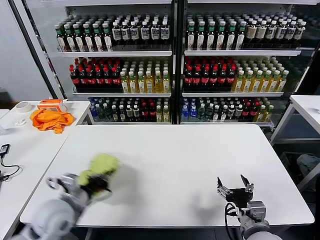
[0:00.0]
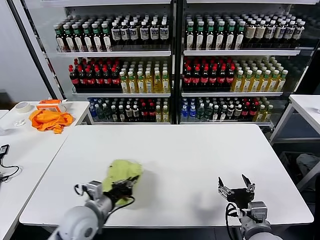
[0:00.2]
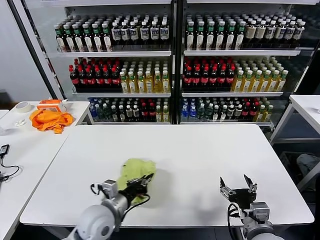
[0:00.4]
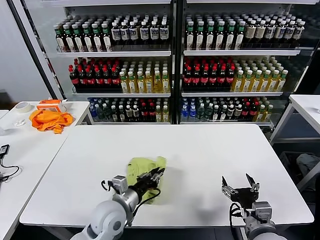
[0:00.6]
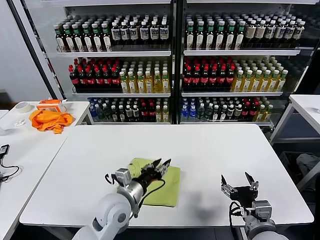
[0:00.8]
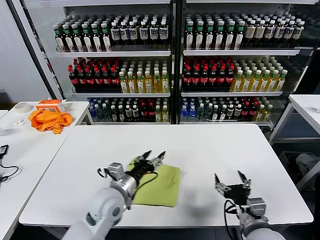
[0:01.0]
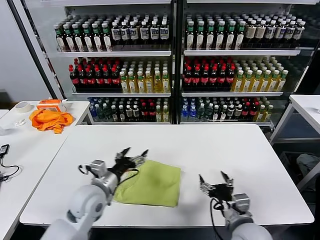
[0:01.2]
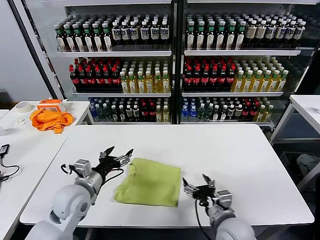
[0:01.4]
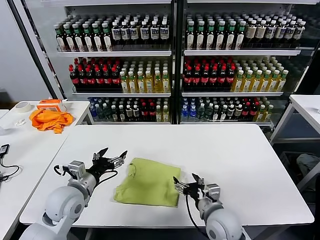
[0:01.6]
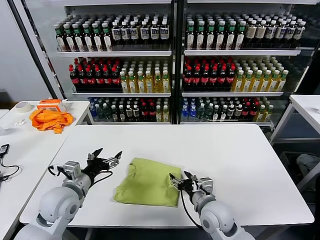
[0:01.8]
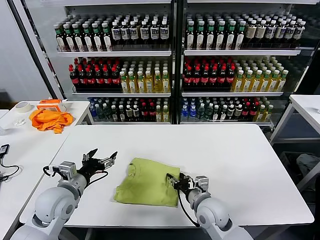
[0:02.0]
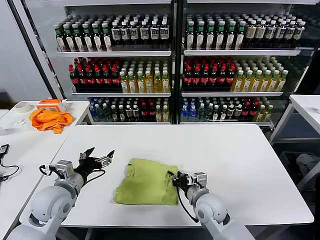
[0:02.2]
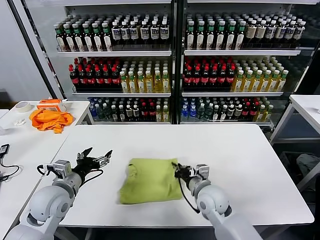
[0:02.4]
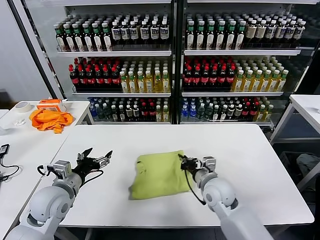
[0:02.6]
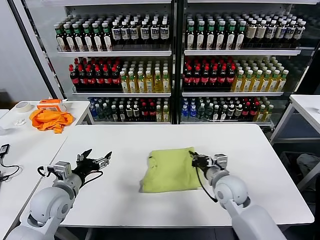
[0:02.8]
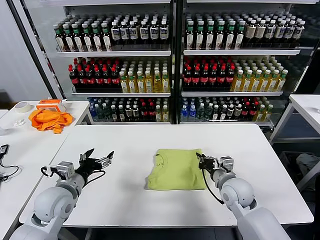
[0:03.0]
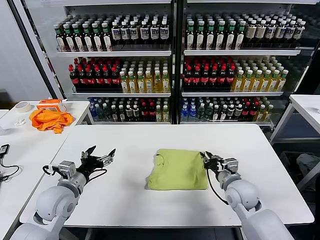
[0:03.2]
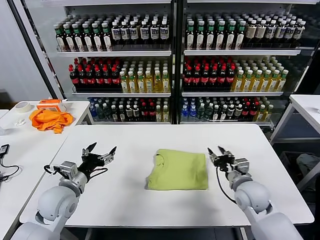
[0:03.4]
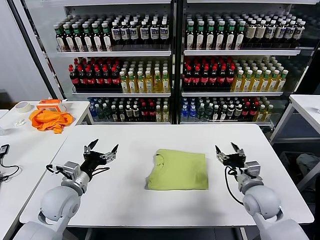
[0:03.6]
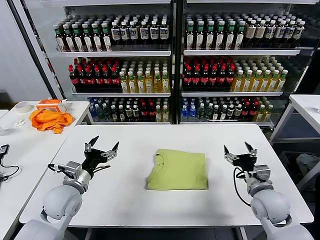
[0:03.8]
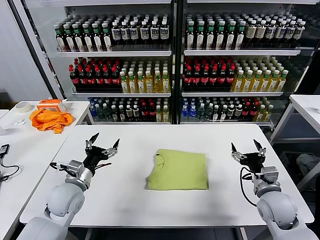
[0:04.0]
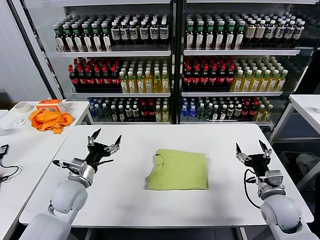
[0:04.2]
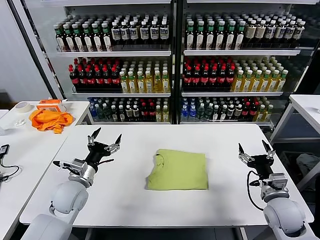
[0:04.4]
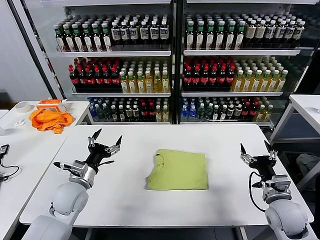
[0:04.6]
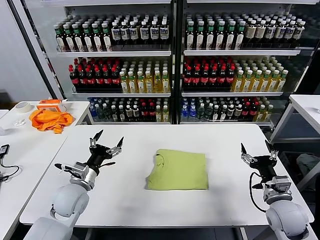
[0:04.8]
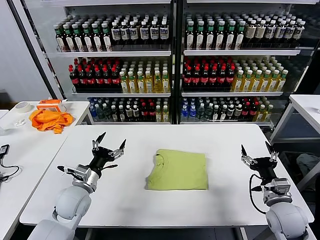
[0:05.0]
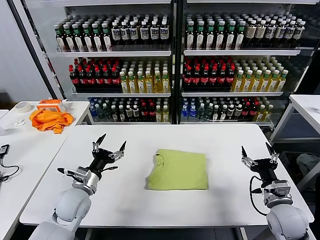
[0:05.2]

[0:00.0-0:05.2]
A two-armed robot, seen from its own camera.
Task of the whole recording: fold and organize the clothes.
Step, 0:01.0 to 0:03.2: Drag the clothes to the center of the table.
0:00.0 to 0:01.8: The right gripper goes roughly 15 cm forward and to the left; the left gripper reaches roughly 15 cm to the right, then returns, and opens.
0:01.8 to 0:03.4: The right gripper moves to the right and forward, roughly 15 cm, and closes.
0:03.4 to 0:05.2: The right gripper heads to the right and backward, covering about 10 cm, and opens its fingers.
